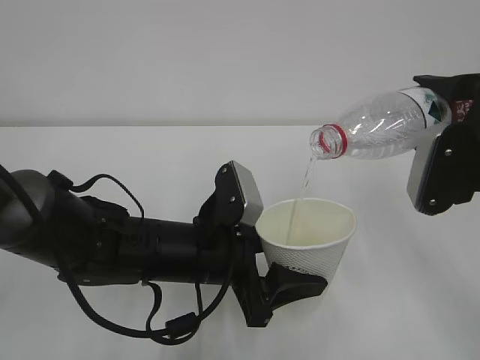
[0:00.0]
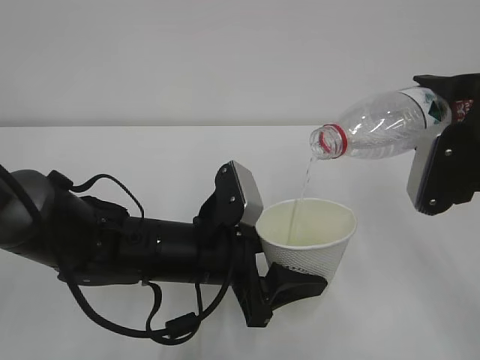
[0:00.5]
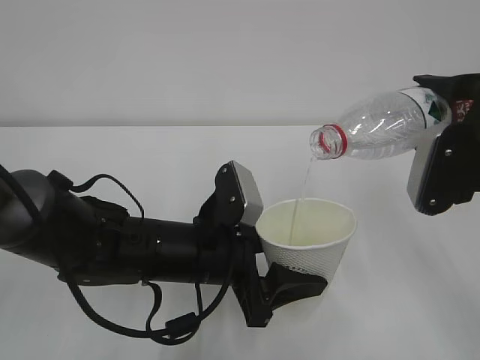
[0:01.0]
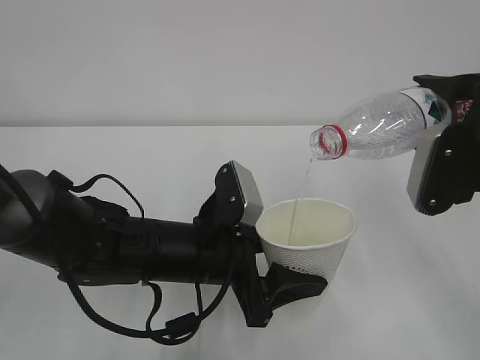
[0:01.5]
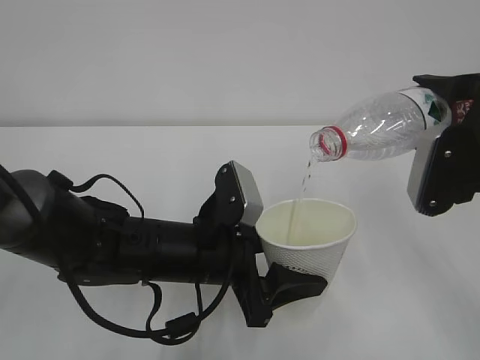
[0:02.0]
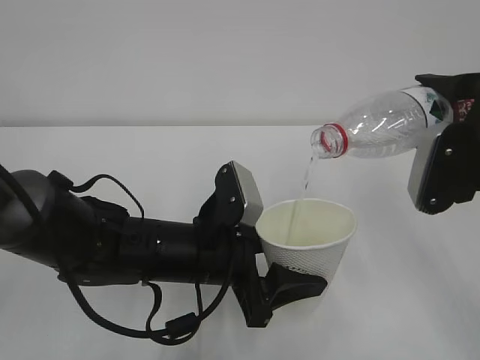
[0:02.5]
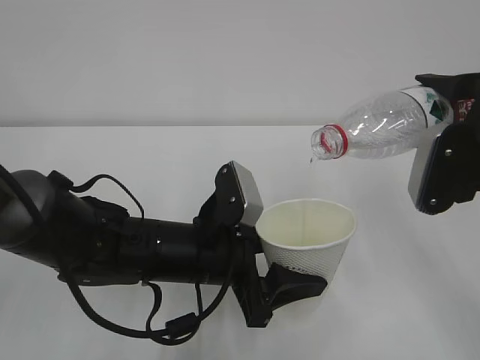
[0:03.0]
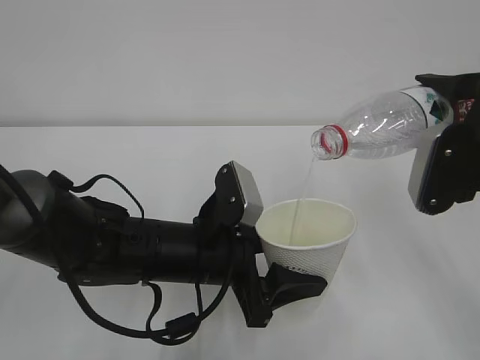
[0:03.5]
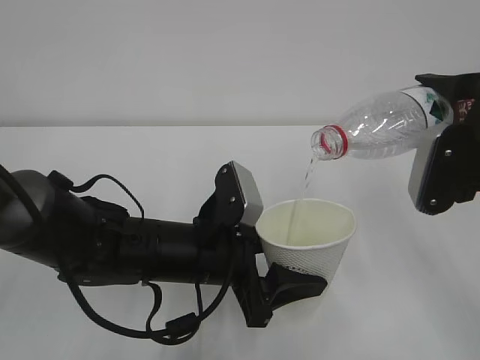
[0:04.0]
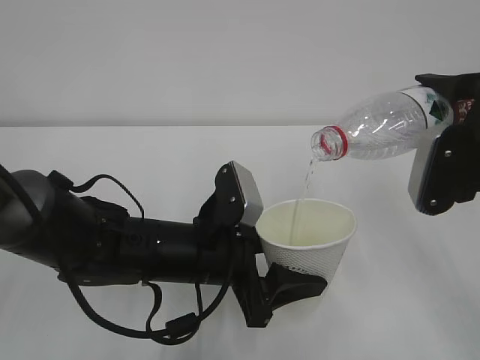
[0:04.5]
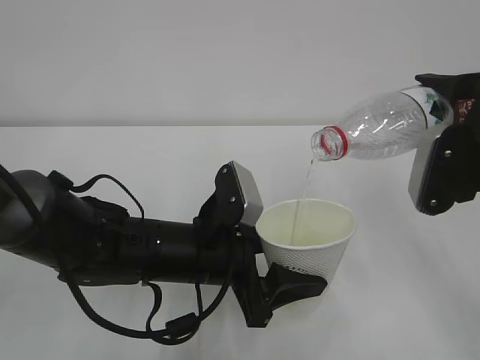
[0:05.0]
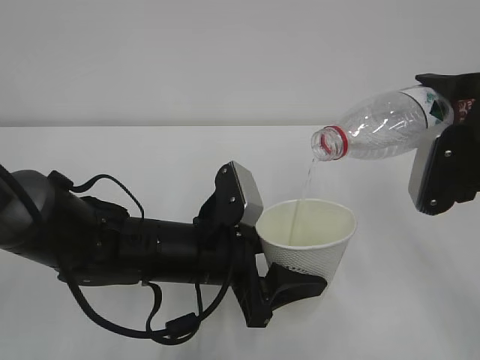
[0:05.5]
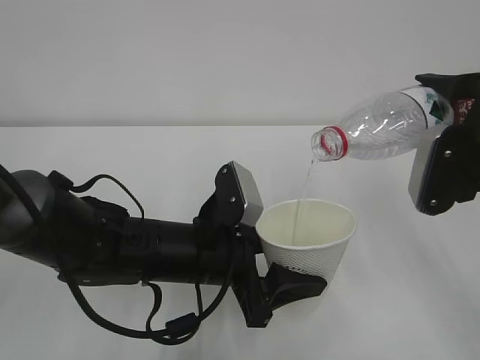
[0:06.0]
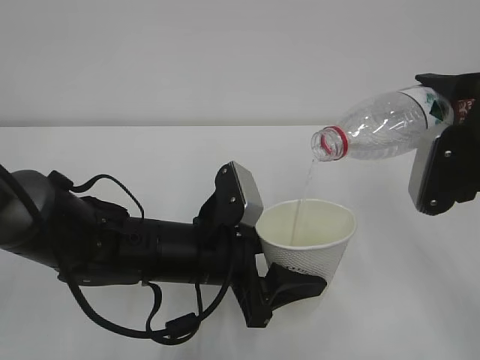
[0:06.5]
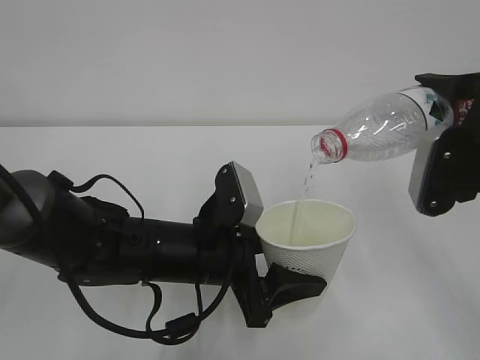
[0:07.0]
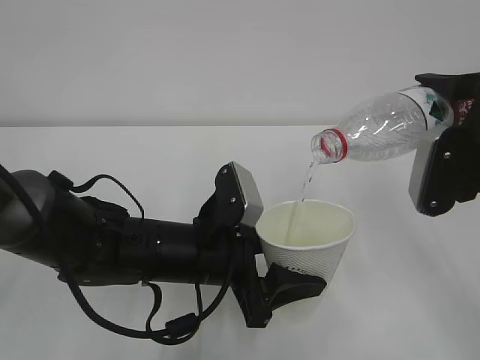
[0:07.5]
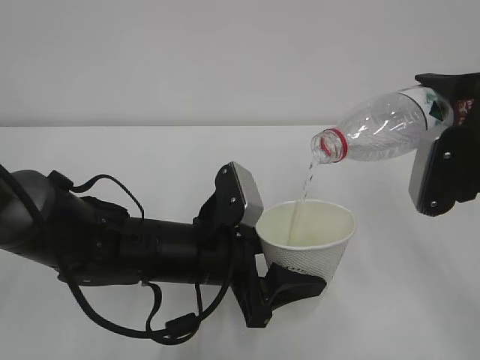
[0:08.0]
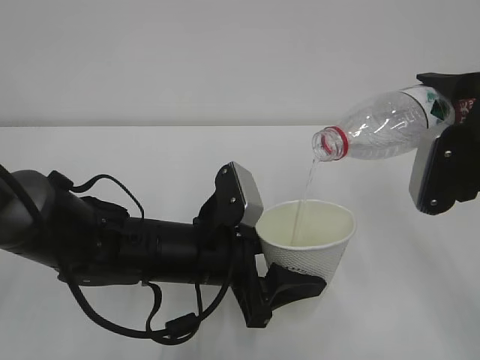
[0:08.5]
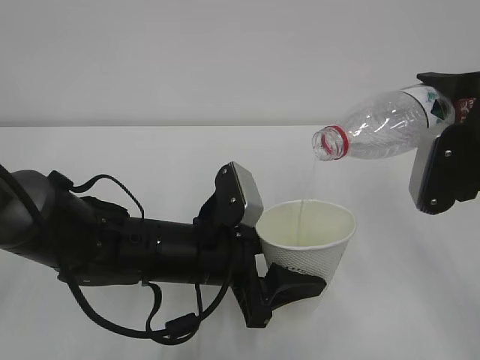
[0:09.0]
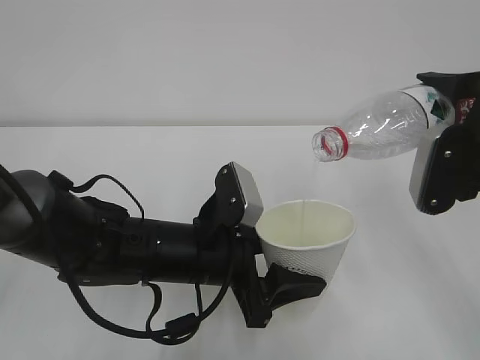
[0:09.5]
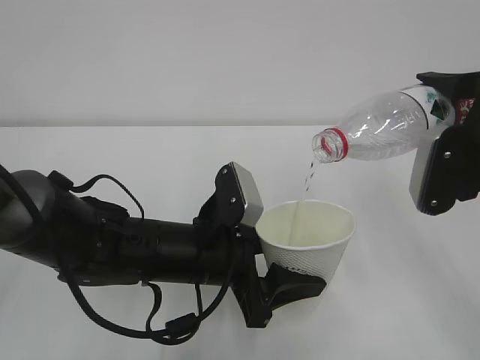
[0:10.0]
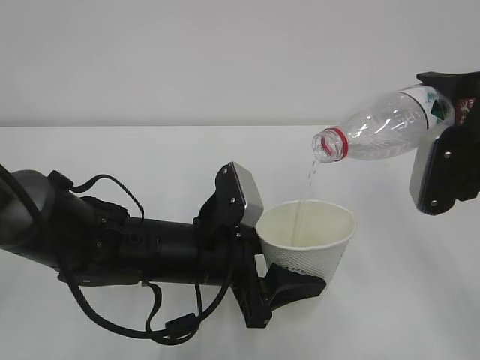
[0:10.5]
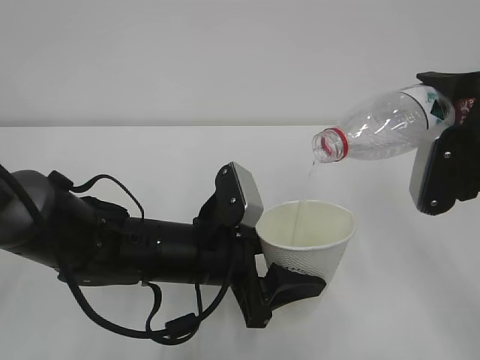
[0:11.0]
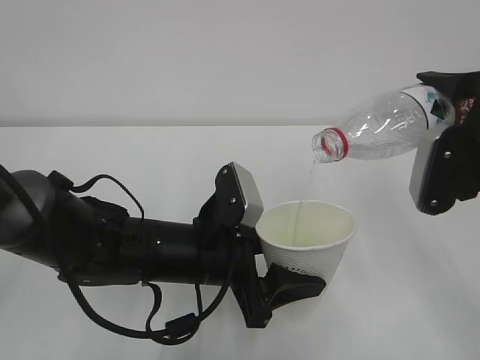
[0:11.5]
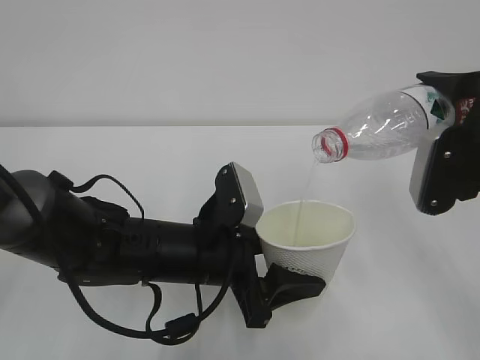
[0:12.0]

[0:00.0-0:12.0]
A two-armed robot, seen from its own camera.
0:00.0 to 0:12.0: The two grippers keep their place.

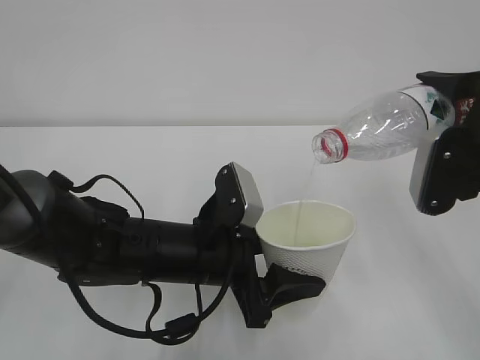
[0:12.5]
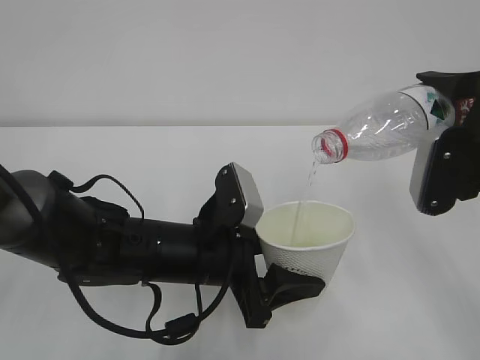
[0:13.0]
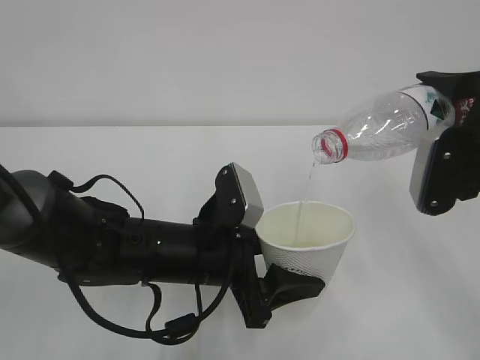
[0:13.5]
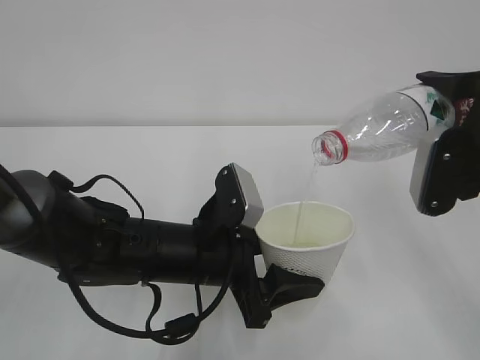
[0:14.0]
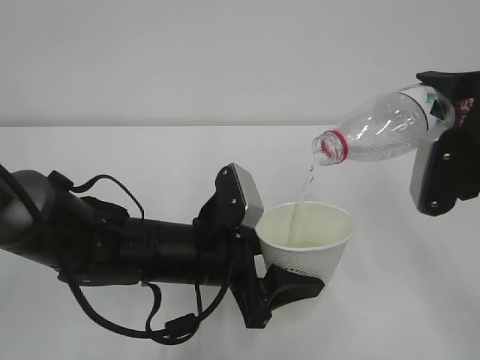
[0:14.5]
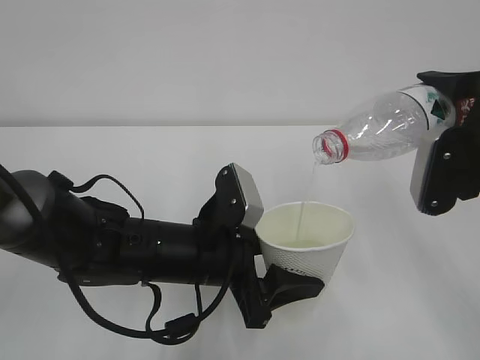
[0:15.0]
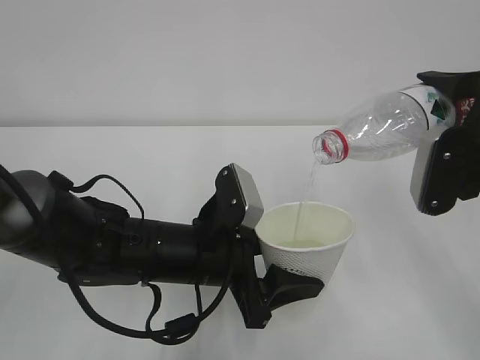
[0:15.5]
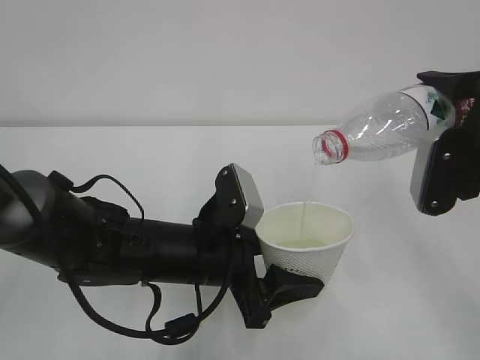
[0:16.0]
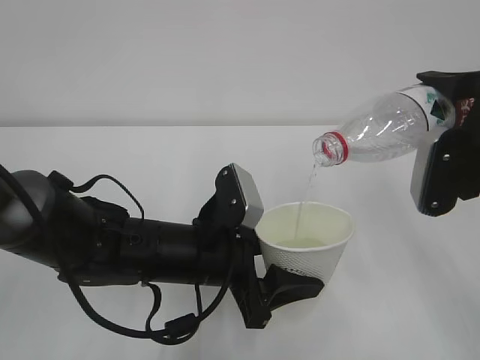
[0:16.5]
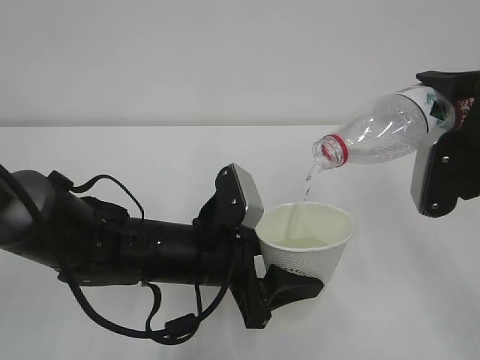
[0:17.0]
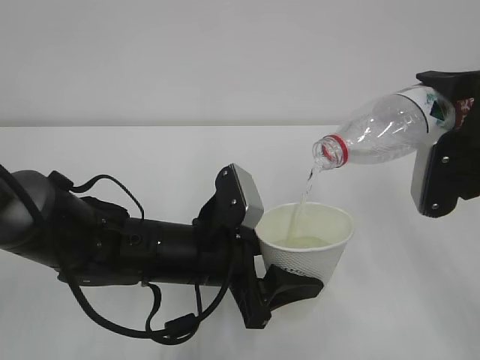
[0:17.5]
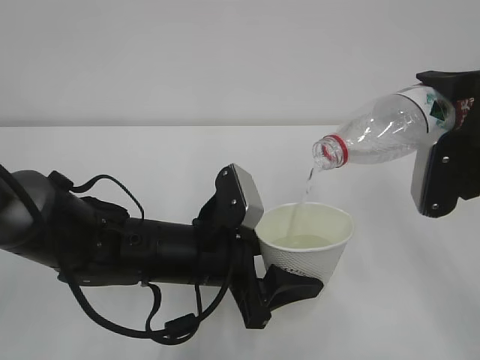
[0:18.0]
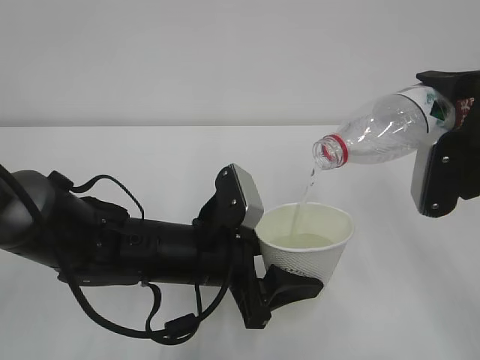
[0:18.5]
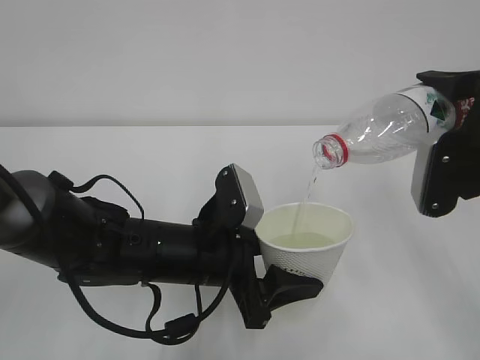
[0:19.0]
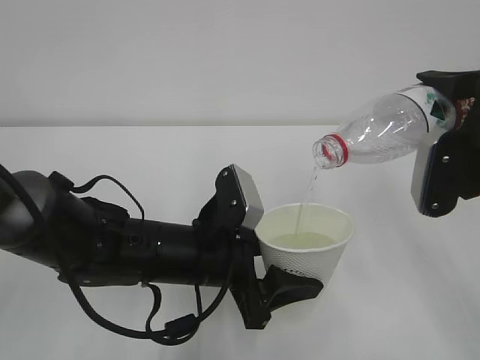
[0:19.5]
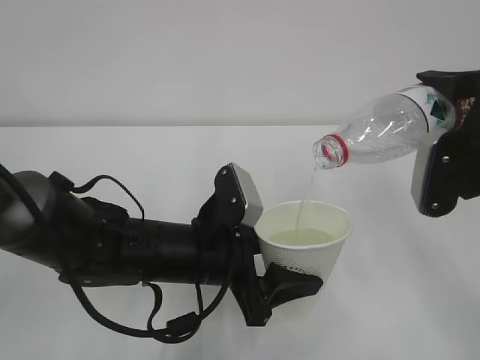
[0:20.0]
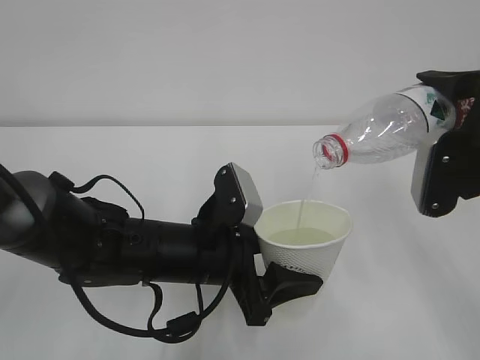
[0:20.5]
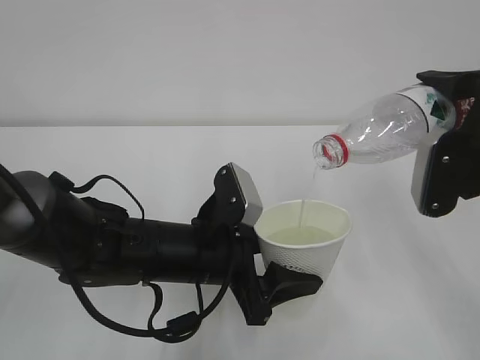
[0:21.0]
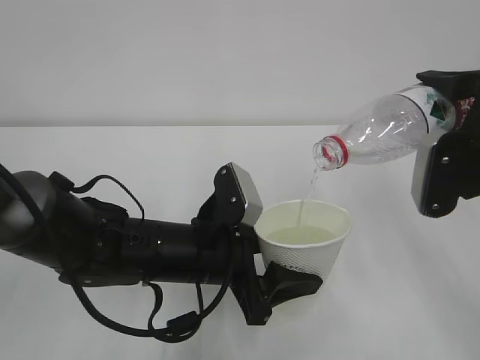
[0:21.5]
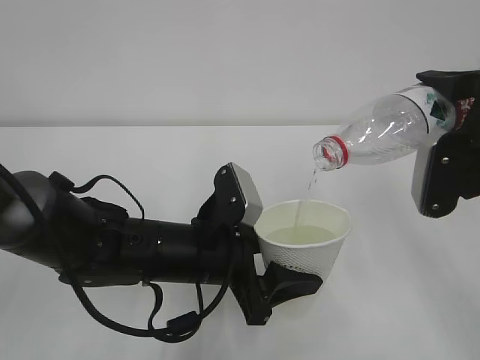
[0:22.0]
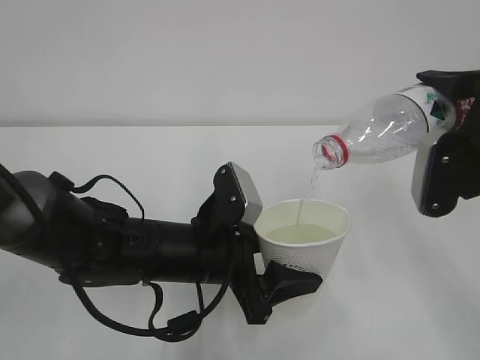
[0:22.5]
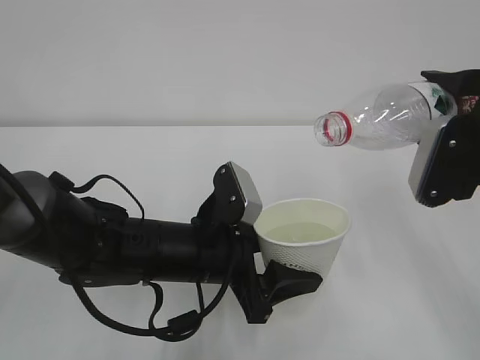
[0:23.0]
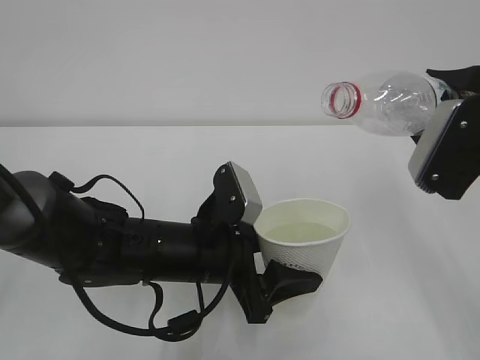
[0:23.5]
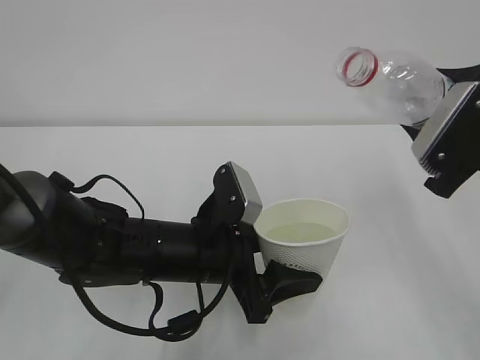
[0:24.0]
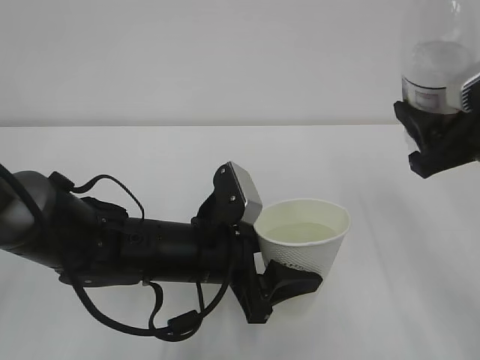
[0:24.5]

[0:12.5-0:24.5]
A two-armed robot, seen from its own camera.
Step, 0:12.5 to 0:23.0: Take the water with left gripper.
0:12.5 to 0:22.5: Both grippers stay put.

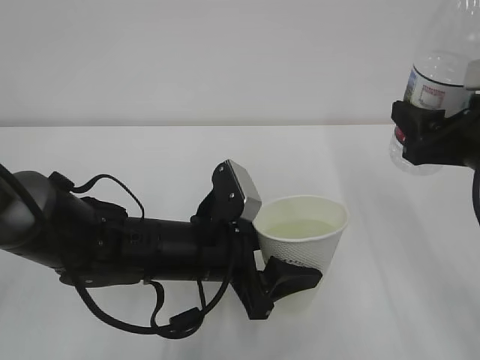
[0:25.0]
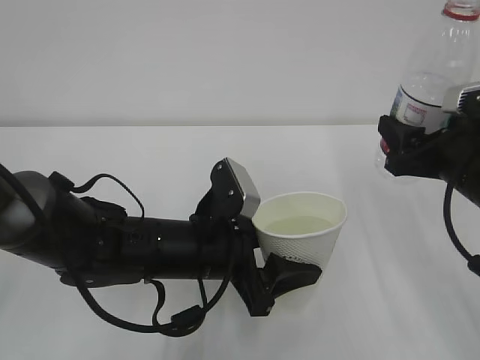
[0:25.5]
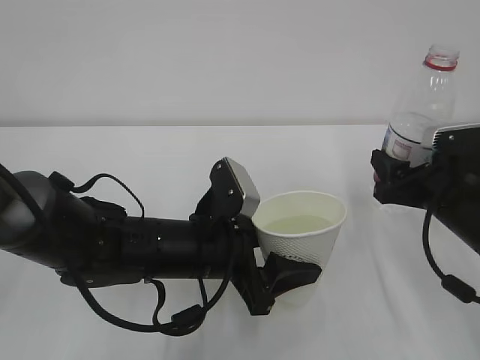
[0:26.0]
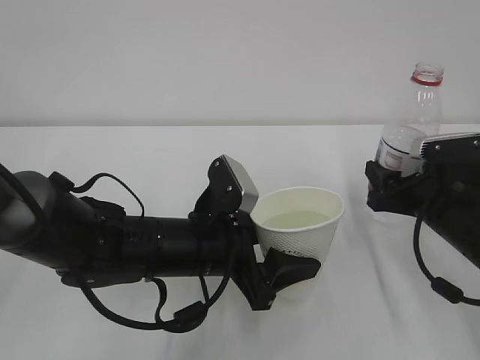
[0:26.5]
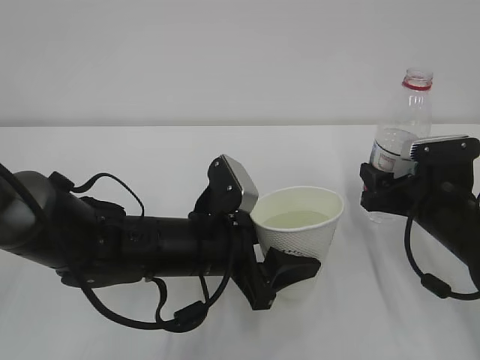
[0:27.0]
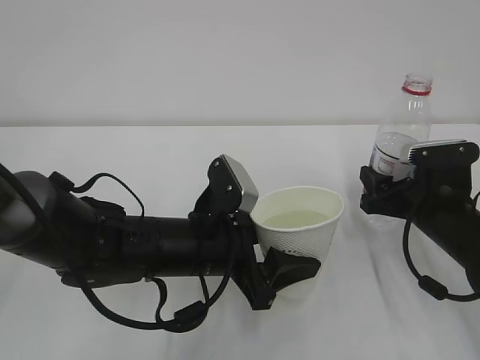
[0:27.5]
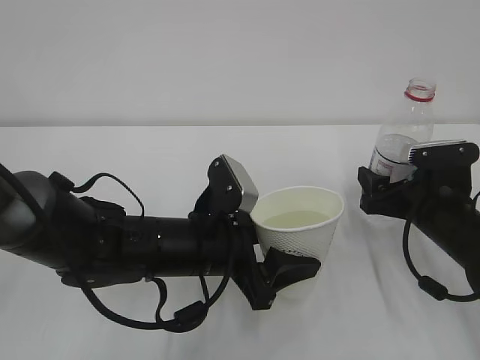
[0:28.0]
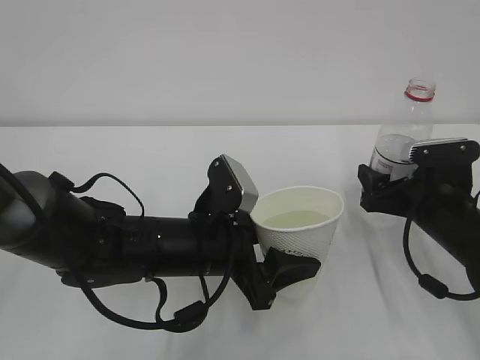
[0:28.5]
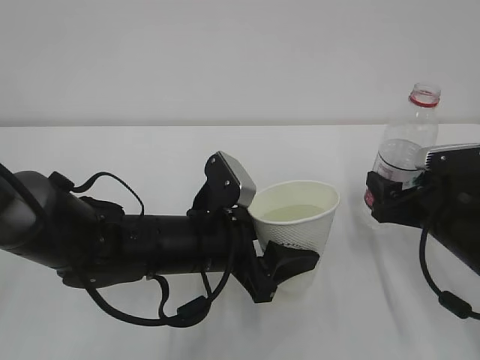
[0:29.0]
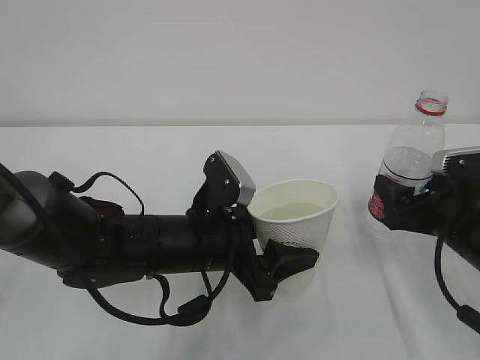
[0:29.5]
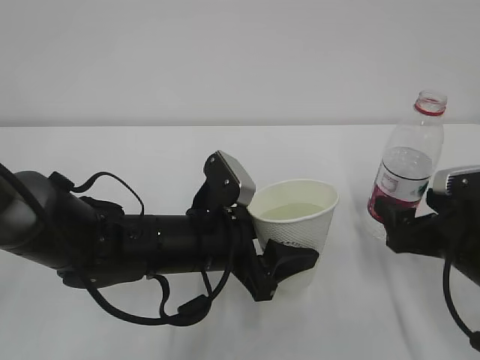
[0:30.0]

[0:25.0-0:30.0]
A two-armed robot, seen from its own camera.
Step, 0:25.0 to 0:28.5: Put the bottle down with right gripper.
0:25.0 to 0:27.5: The right gripper moves downward, roughly 15 cm.
0:27.5 to 0:30.0: The right gripper heads backward, covering roughly 5 cm, and opens its fingers.
